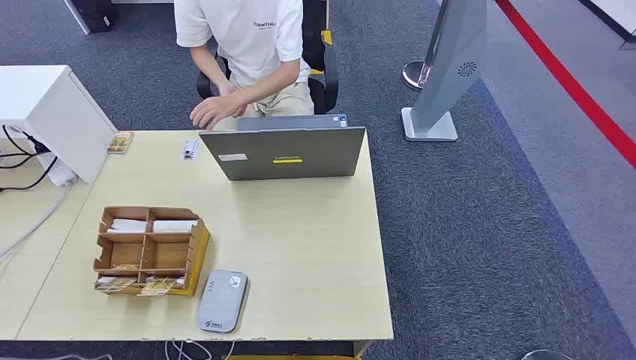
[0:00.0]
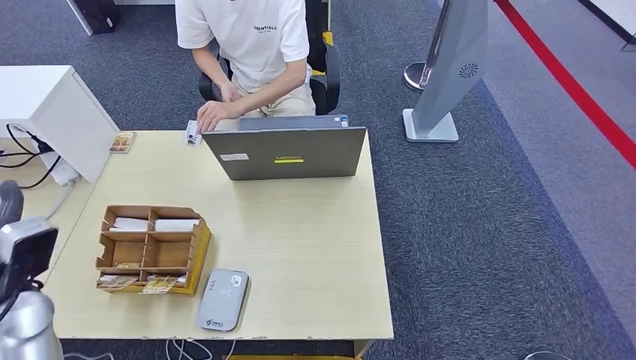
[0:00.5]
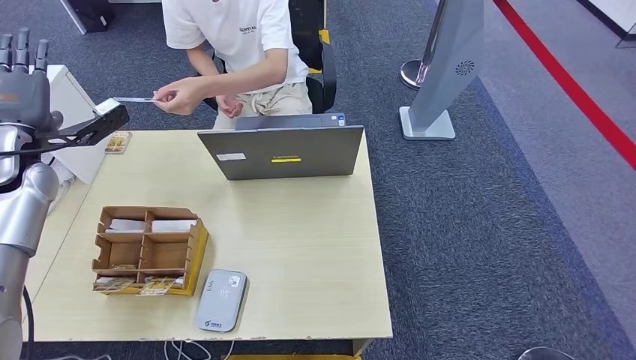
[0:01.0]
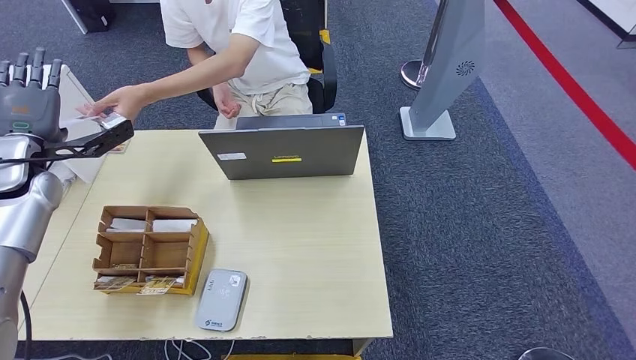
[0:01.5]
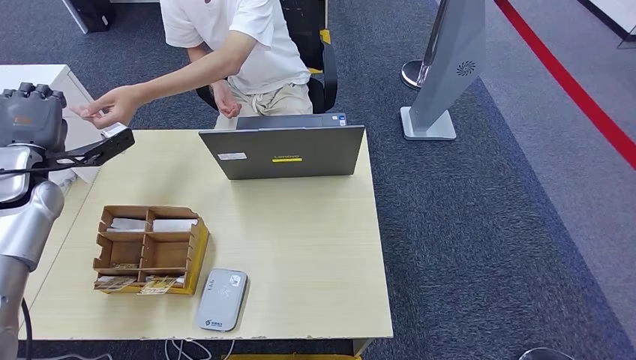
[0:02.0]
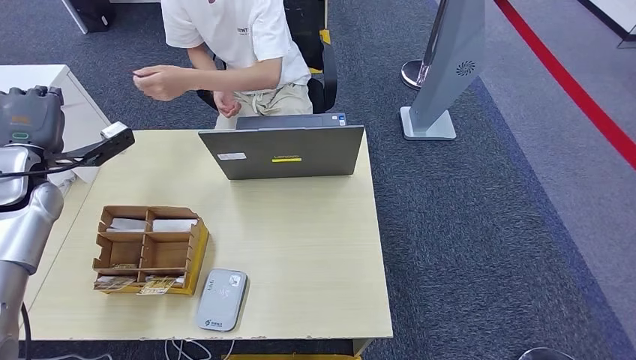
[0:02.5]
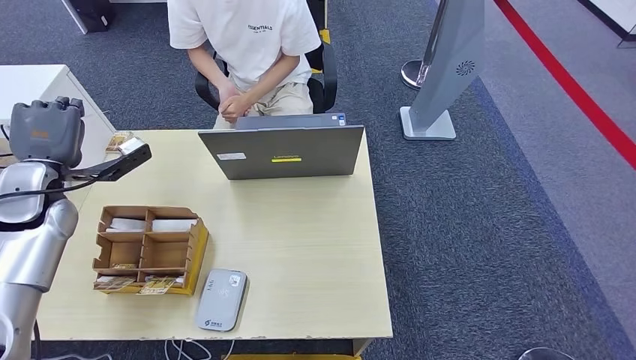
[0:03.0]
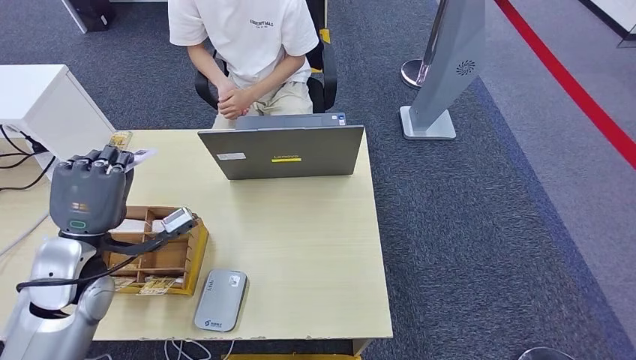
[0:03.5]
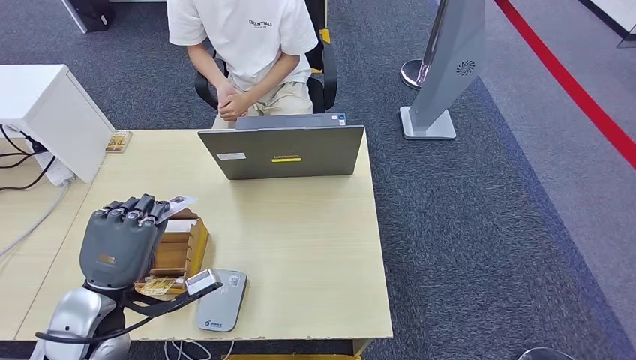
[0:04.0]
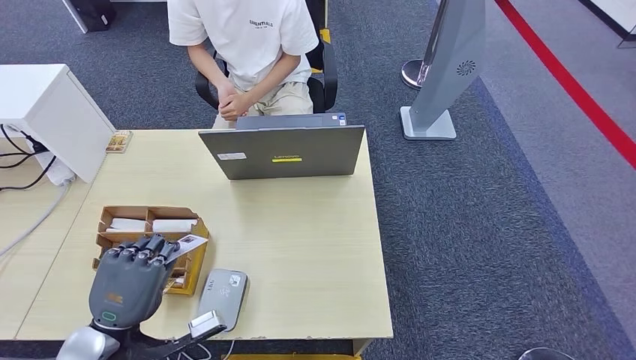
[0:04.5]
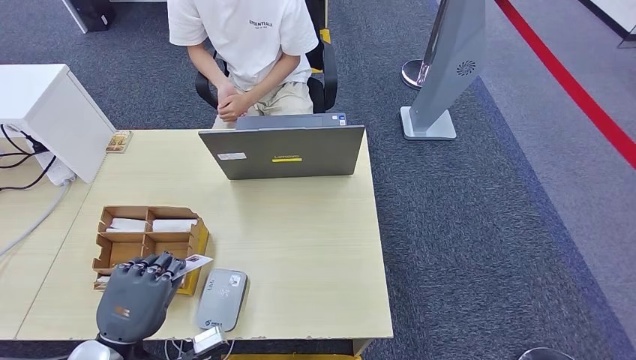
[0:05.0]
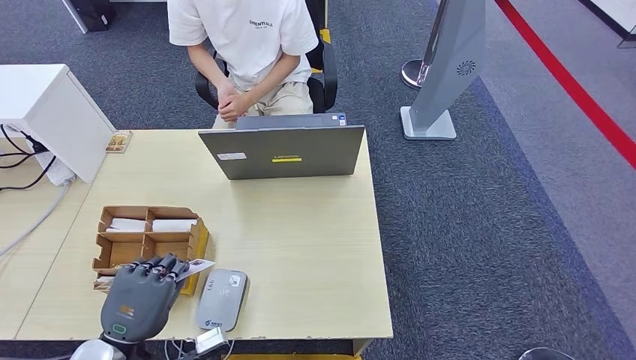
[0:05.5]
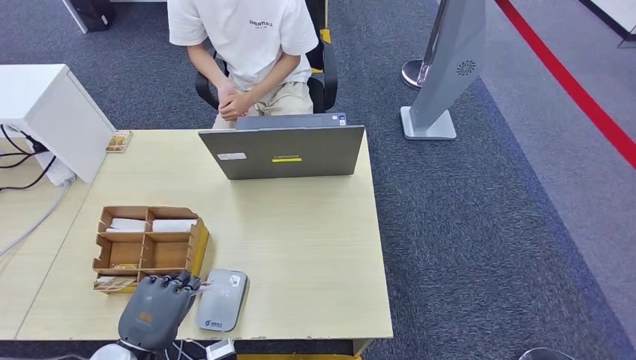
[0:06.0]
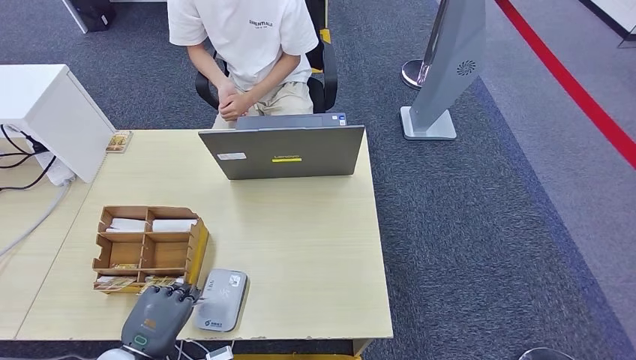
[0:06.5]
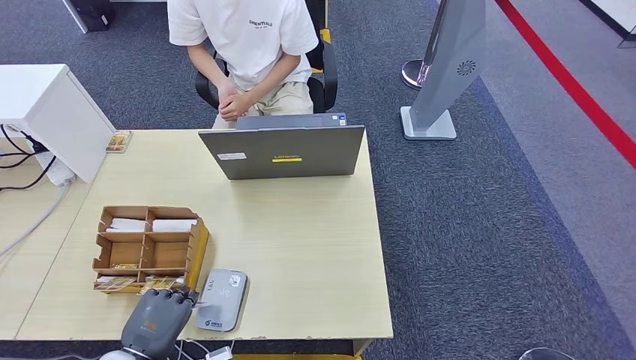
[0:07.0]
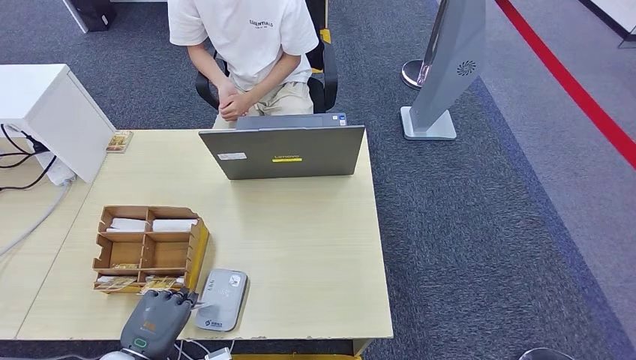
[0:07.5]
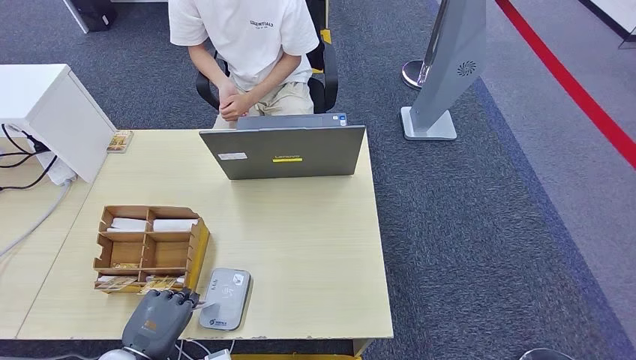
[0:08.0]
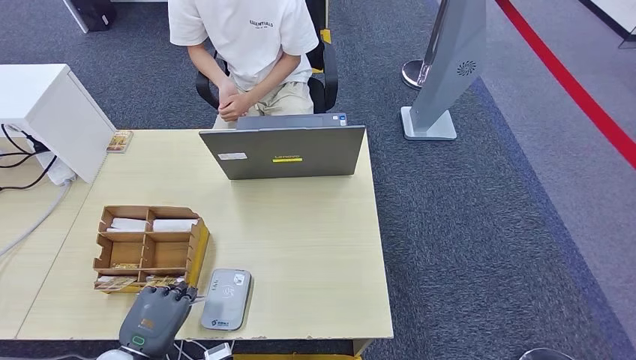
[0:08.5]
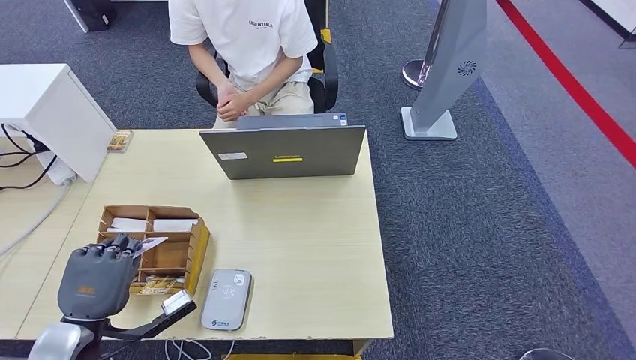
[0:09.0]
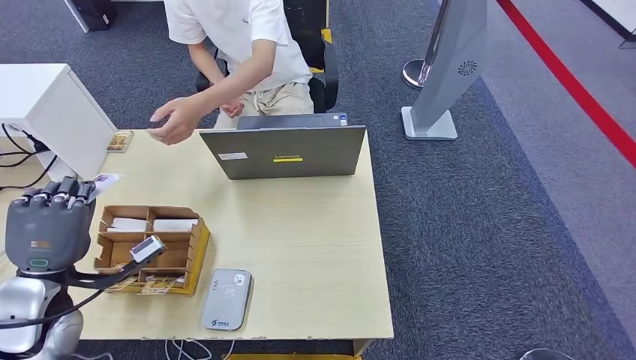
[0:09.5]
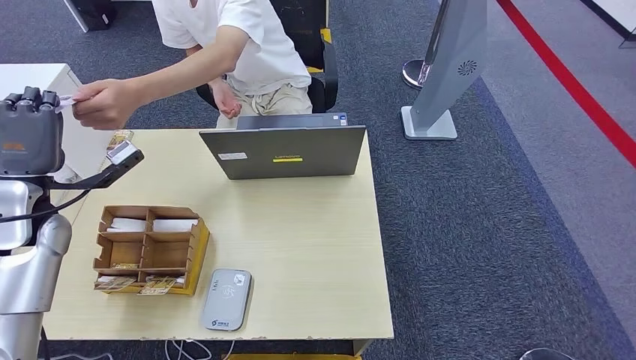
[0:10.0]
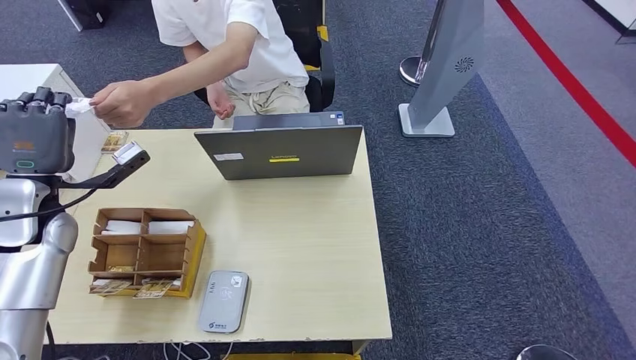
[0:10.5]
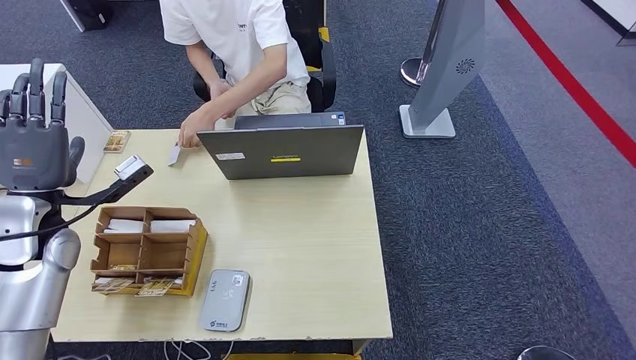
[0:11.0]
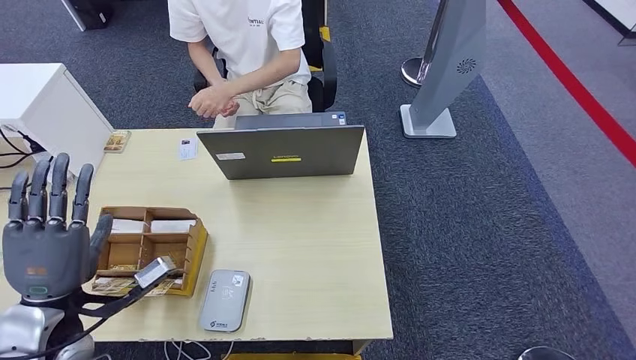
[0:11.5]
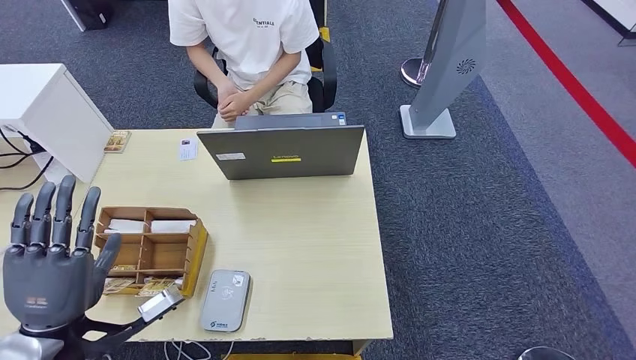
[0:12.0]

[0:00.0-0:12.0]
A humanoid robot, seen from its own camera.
Step, 0:00.0 to 0:03.0: Take the ID card from the person's hand.
Step, 0:03.5 to 0:08.0: Place the ID card on the card reader.
Step, 0:08.5 to 0:10.5: Hand the ID card to the person.
0:02.0 to 0:04.0: The left hand heads backward and to the right, covering about 25 cm.
0:04.0 to 0:06.0: The left hand shifts some 10 cm downward and backward.
0:06.0 to 0:08.0: The hands make only small movements.
0:08.0 to 0:10.0: The left hand heads forward, upward and to the left, covering roughly 30 cm.
0:10.0 to 0:12.0: The left hand is displaced backward by about 20 cm.

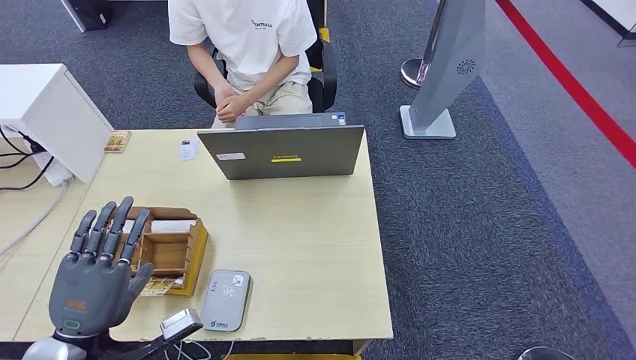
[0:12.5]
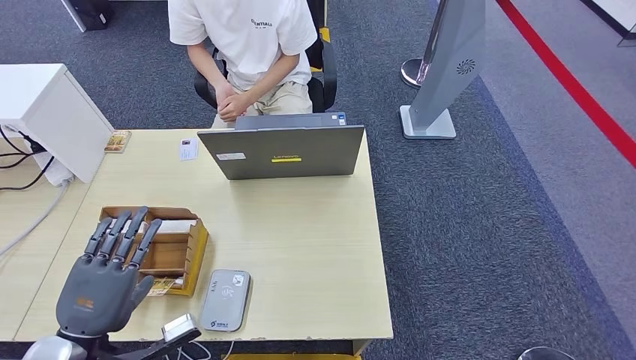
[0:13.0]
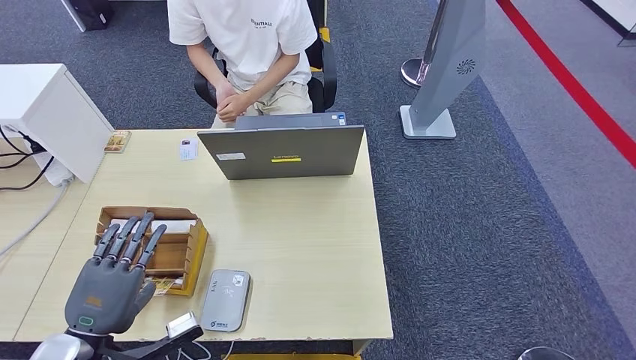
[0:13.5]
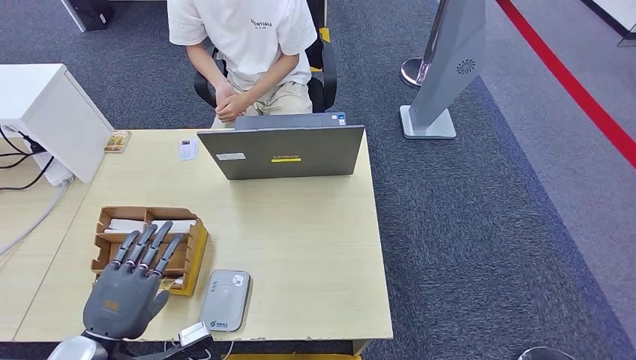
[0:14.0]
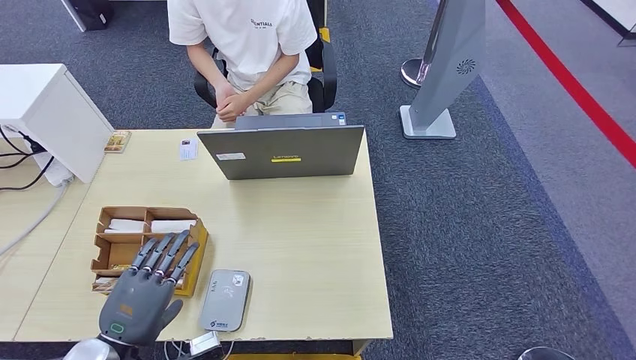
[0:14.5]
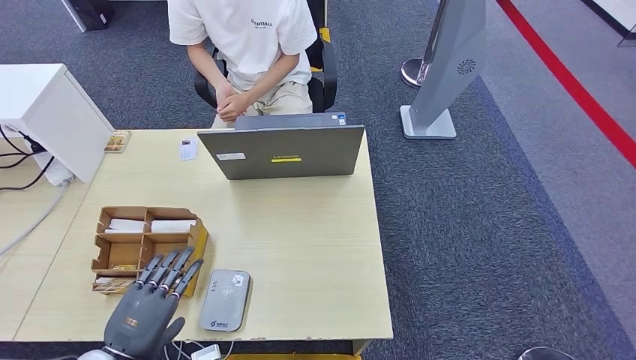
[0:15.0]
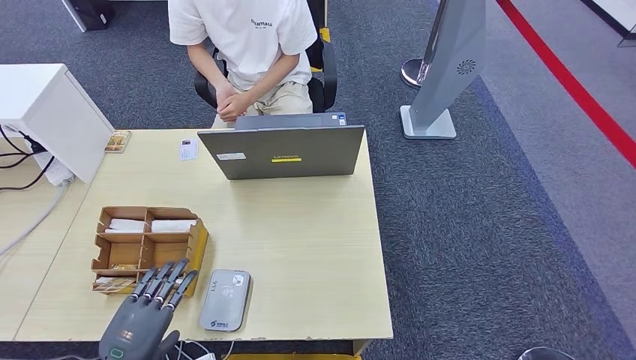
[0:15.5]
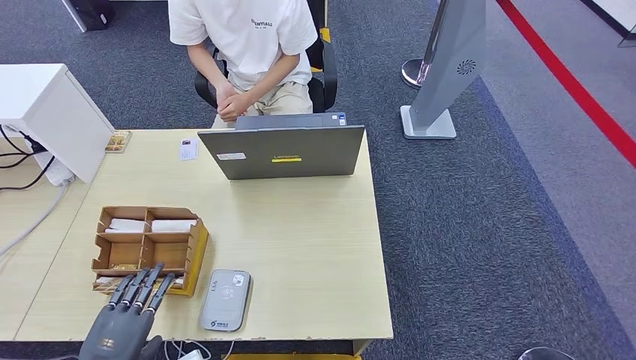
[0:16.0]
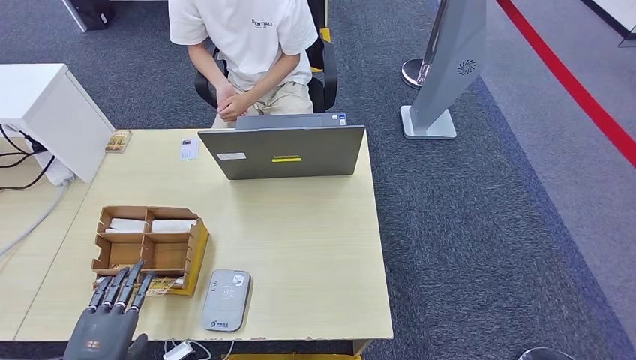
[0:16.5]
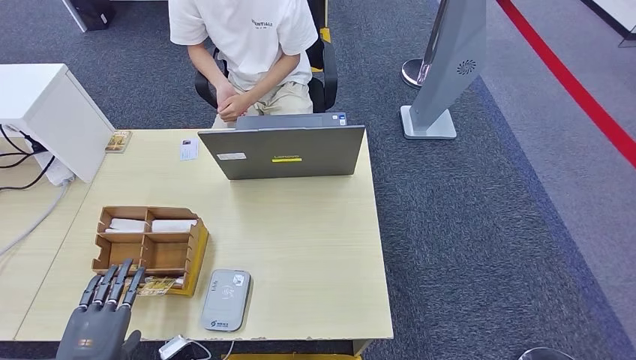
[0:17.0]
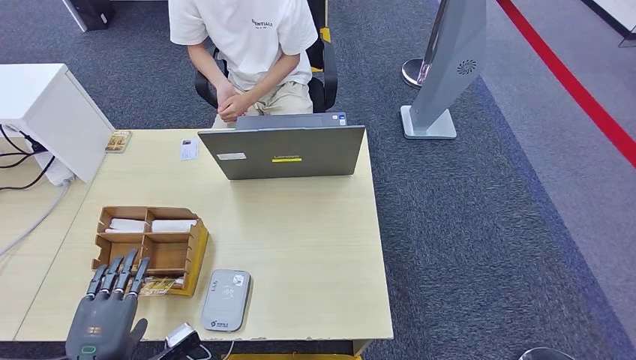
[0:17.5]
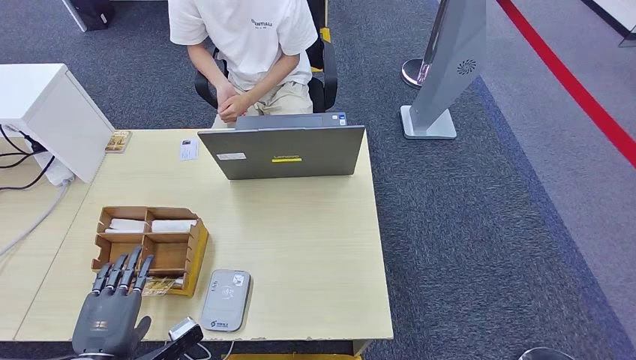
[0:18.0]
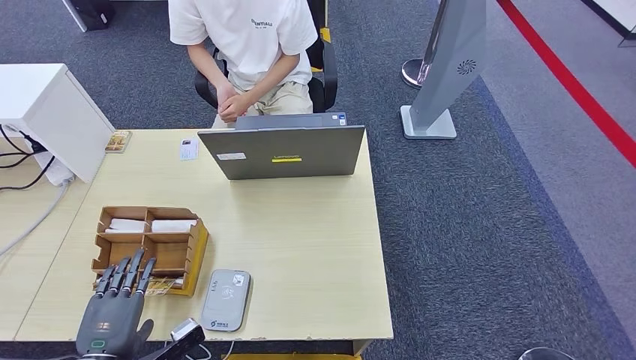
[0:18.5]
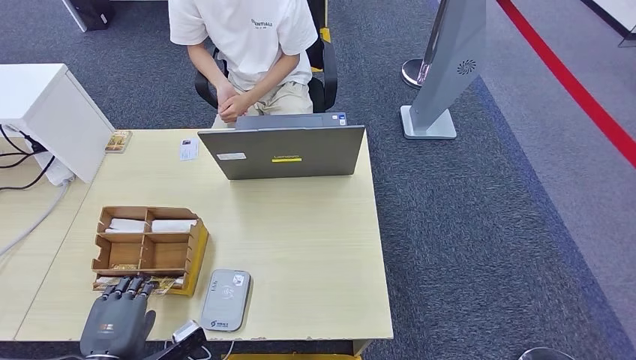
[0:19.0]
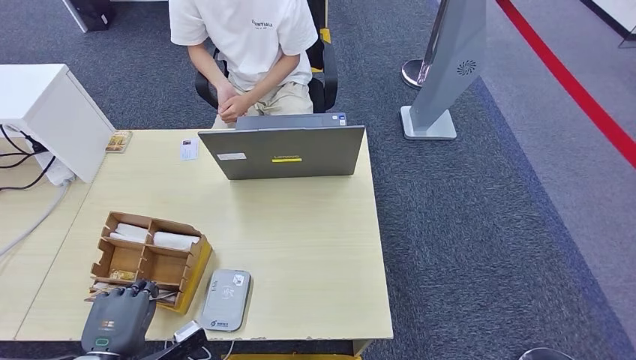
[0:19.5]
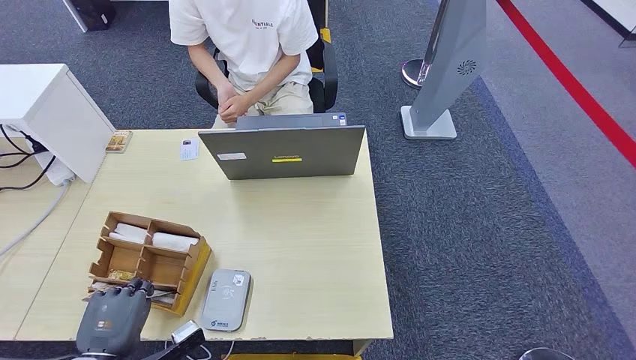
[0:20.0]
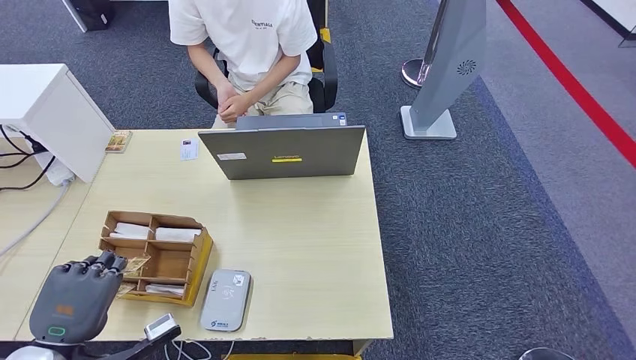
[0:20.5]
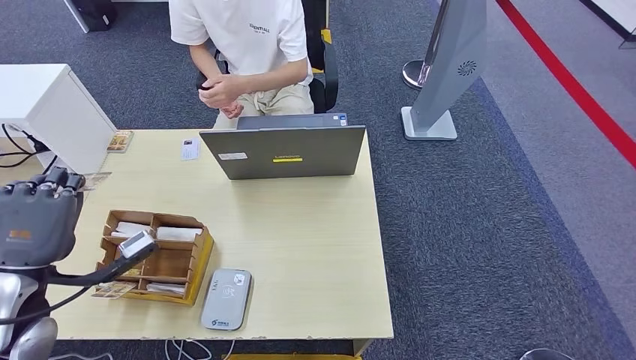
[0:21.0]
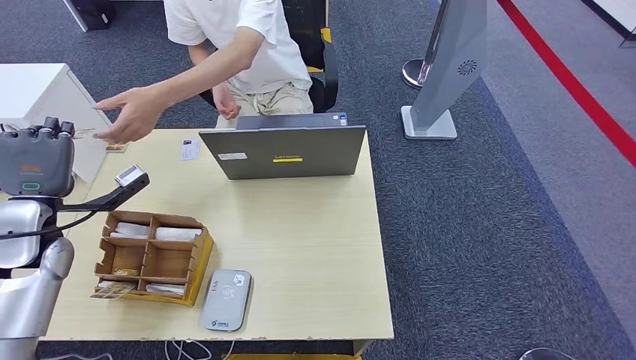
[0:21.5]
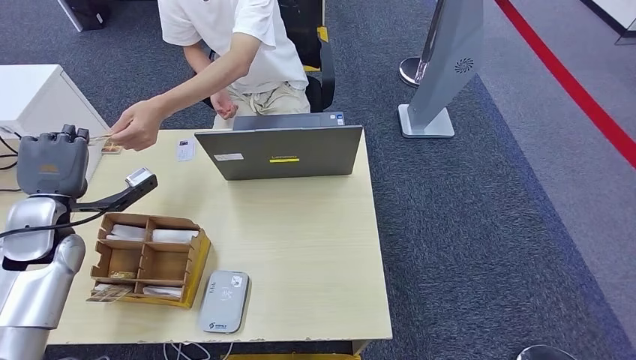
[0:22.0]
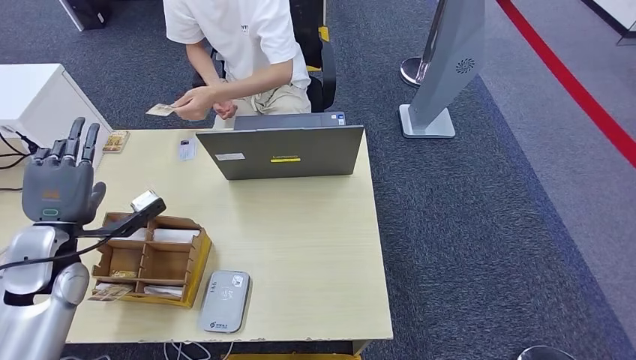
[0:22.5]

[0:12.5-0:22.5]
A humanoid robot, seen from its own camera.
Step, 0:12.5 to 0:19.0: Pick up the room key from the key card box.
Step, 0:19.5 to 0:22.5: Hand the room key to the person.
0:14.5 to 0:16.5: The left hand moves roughly 5 cm.
0:16.5 to 0:18.5: The hands make only small movements.
0:18.5 to 0:20.5: The left hand shifts approximately 5 cm upward.
0:20.5 to 0:22.5: The left hand heads forward, covering roughly 15 cm.
